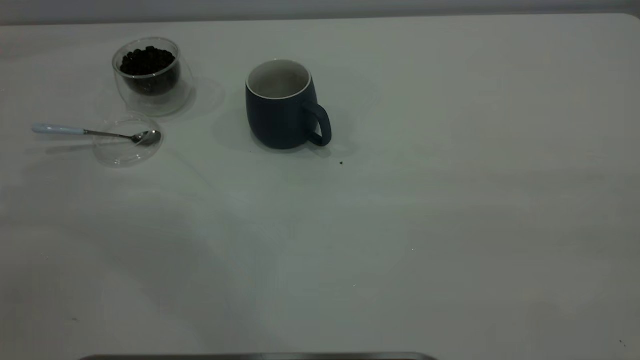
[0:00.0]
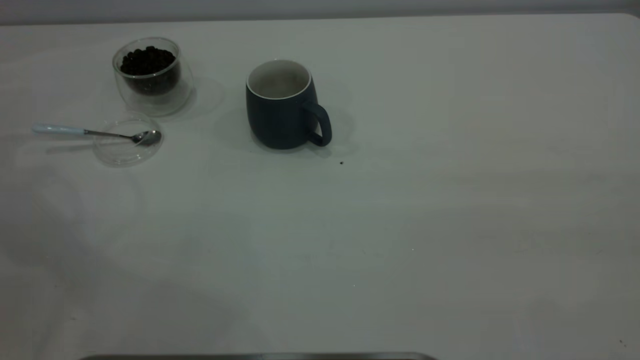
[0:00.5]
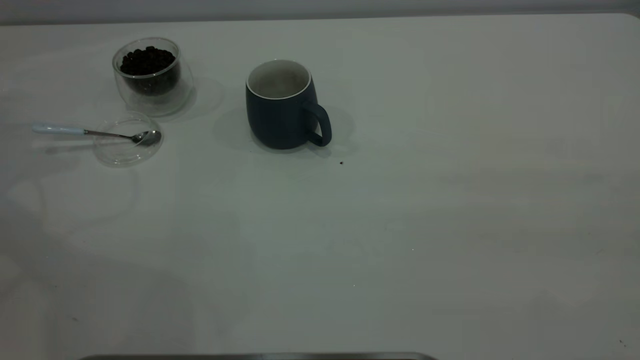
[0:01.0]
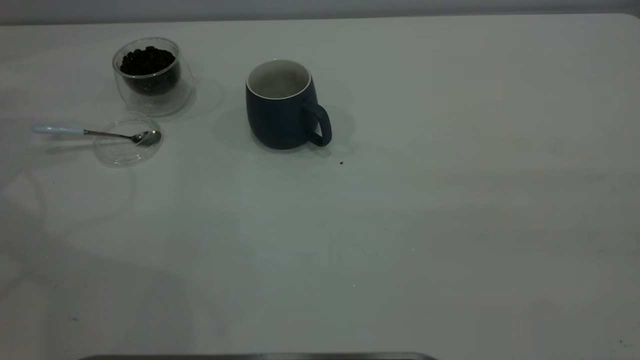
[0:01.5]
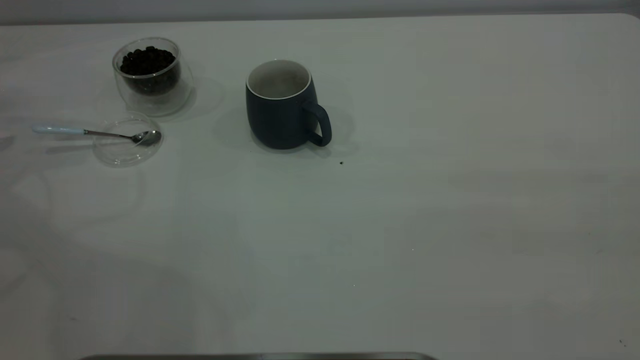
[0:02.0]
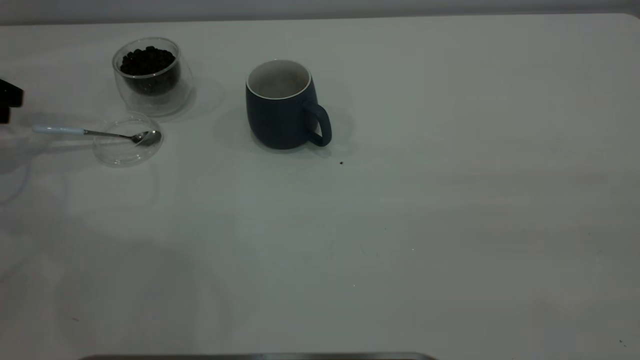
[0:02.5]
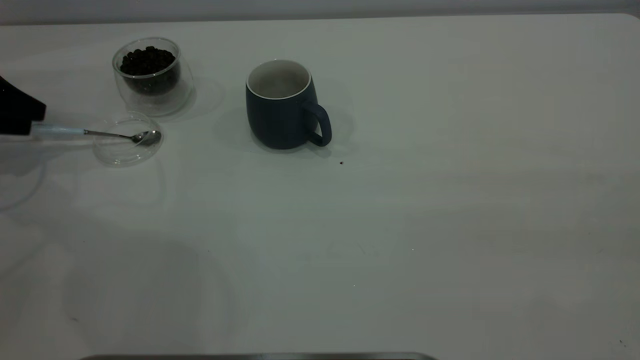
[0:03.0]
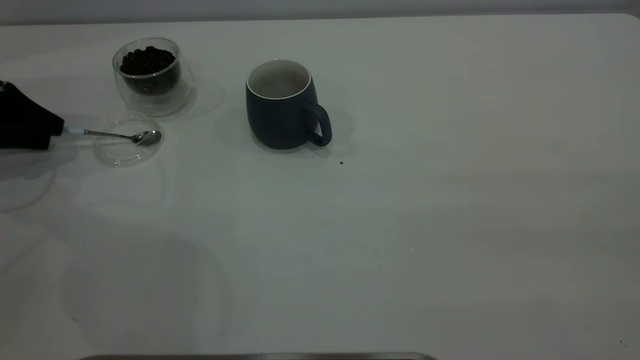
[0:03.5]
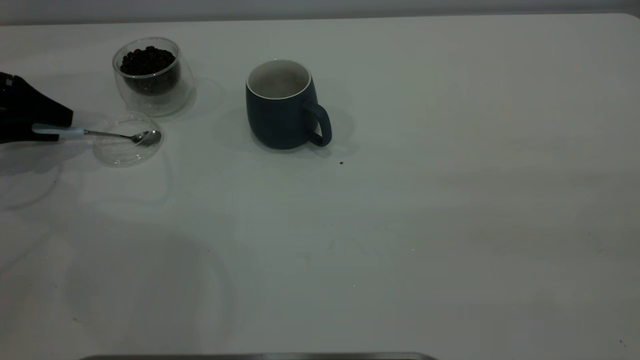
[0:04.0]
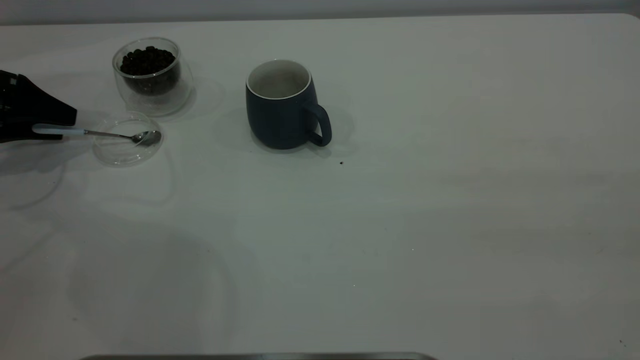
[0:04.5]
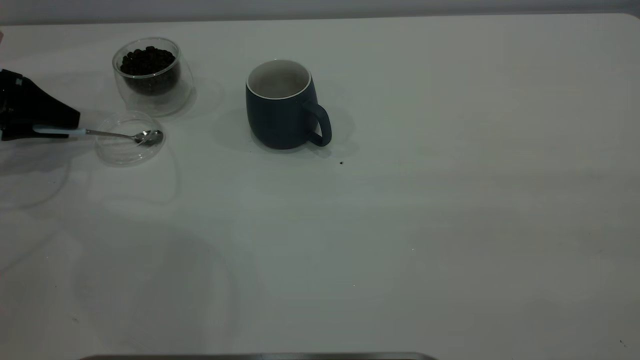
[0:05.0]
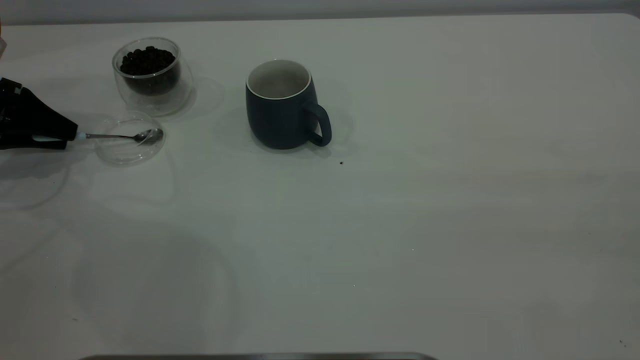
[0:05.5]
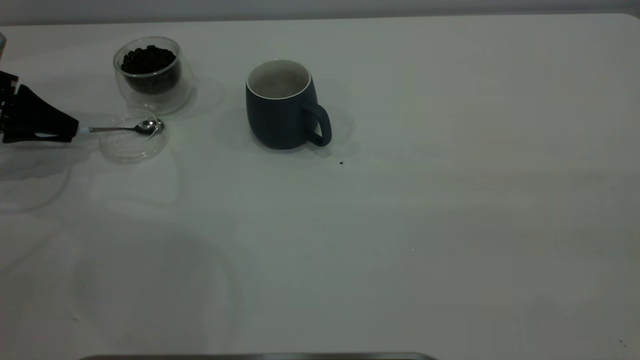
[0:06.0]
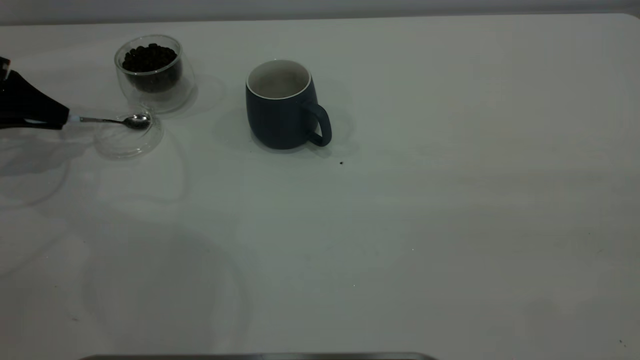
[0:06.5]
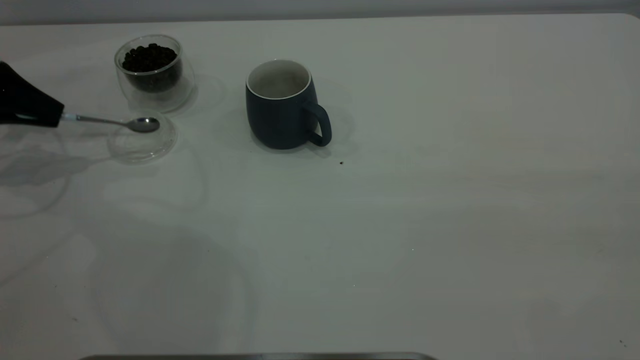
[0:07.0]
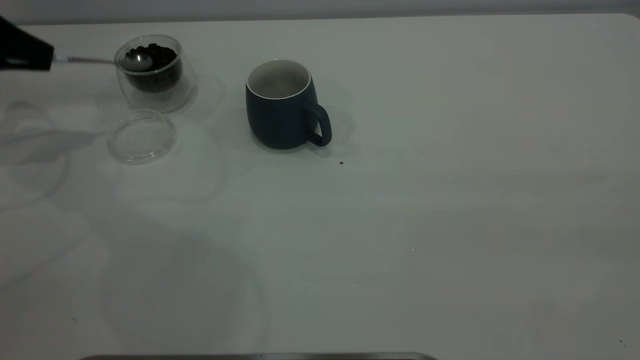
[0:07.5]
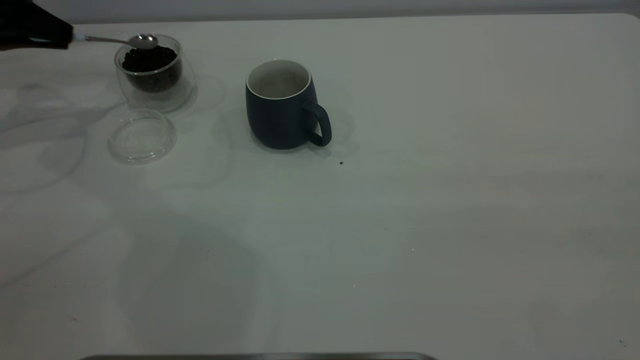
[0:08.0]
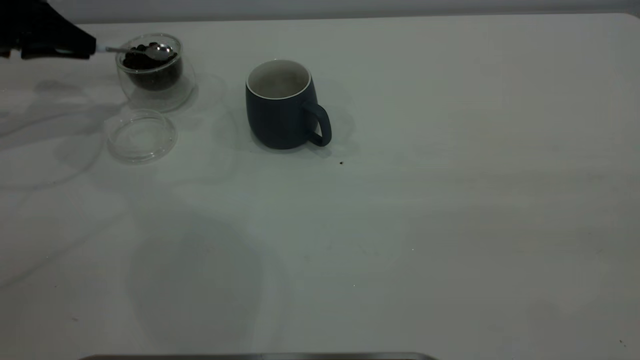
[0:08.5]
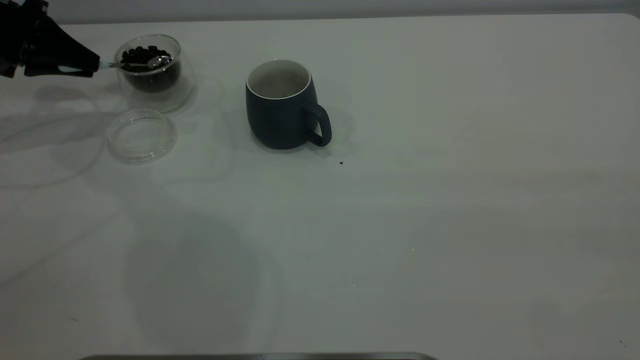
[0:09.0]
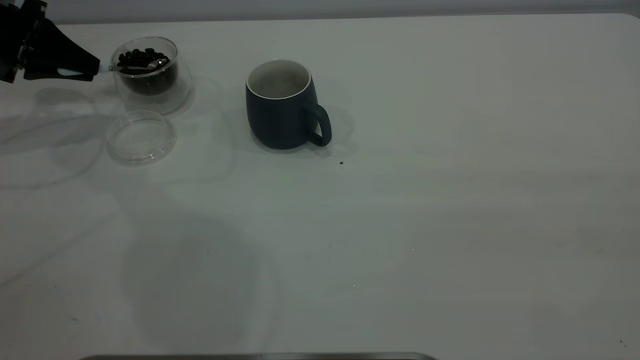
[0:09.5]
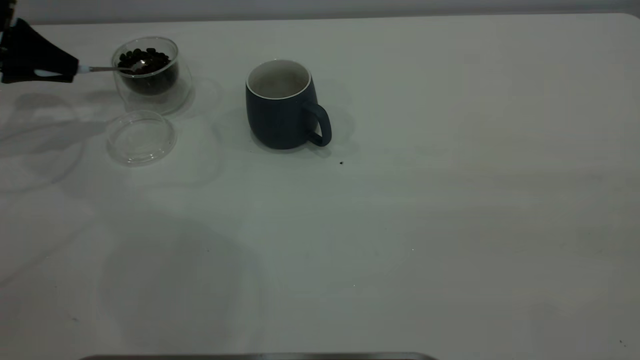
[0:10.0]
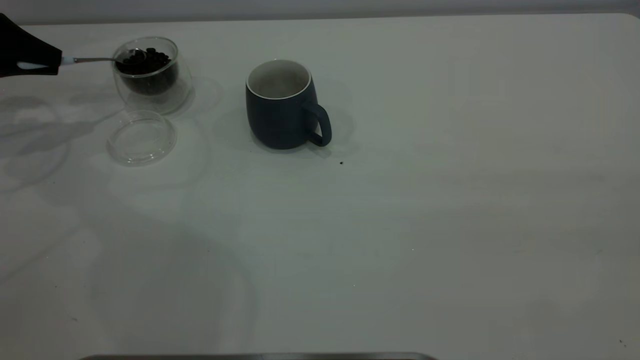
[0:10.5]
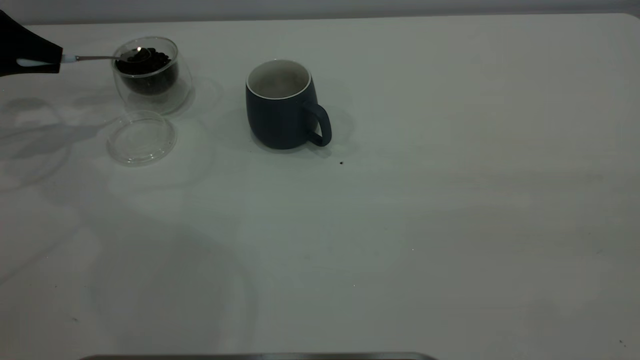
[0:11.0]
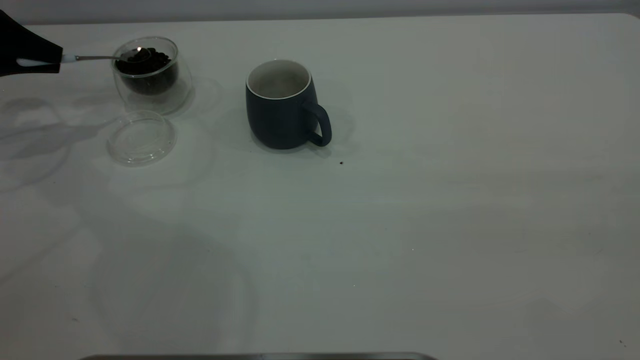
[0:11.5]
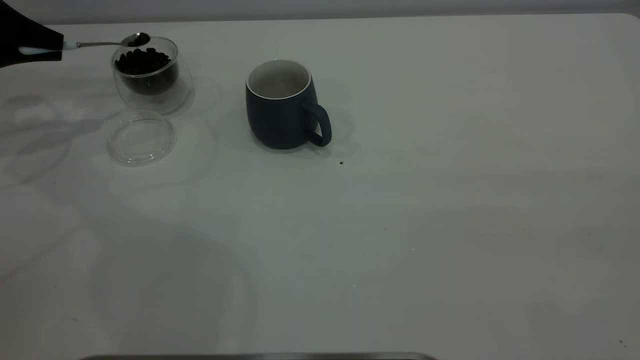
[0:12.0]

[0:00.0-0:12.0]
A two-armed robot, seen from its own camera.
Task of the whole recording: the right gripper place the grey cup in the center of the table, the left gripper take the blue spoon from the cup lid and scoop out the coffee beans from the coffee cup and put them into the grey cup, the left gripper put the spoon back into the cup lid.
Step, 0:00.0 to 0:07.0: Pick up the spoon.
0:02.0 to 0:04.0: The left gripper goes roughly 10 cm to the right and downward.
0:04.0 to 0:06.0: The left gripper closes.
0:06.0 to 0:08.0: The left gripper shifts approximately 10 cm upward and forward.
0:08.0 to 0:10.0: The grippers make only small movements.
0:10.0 to 0:12.0: There are only small adjustments of the grippers.

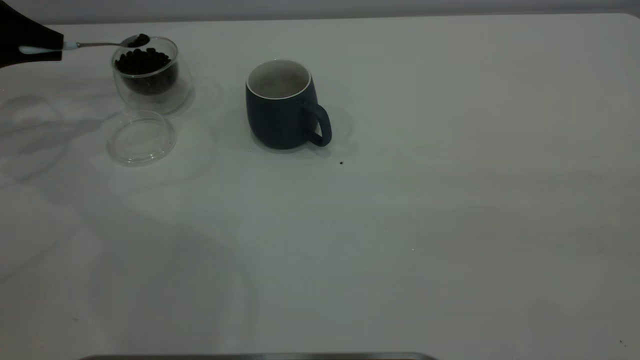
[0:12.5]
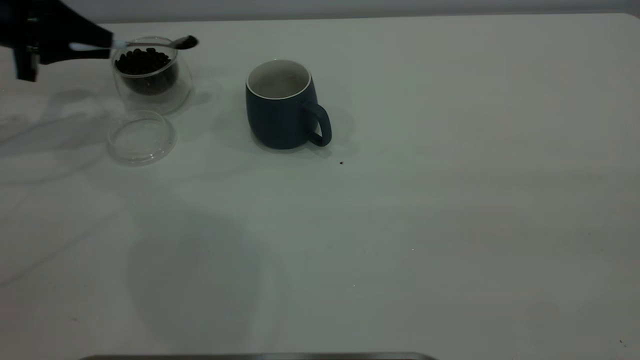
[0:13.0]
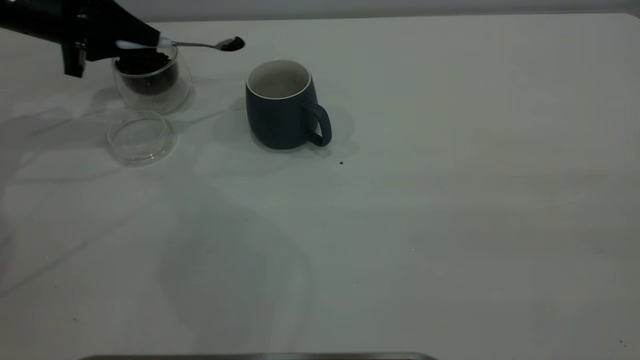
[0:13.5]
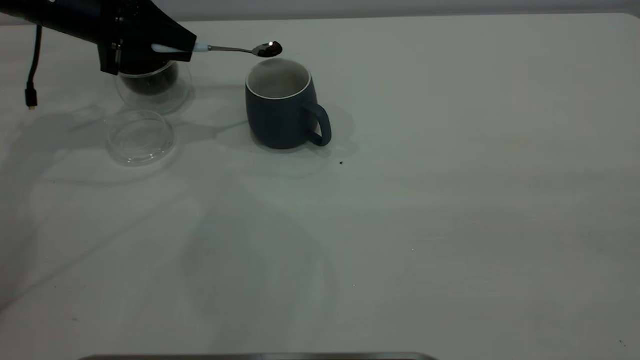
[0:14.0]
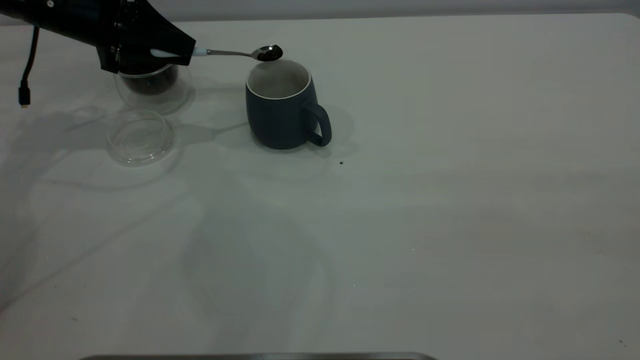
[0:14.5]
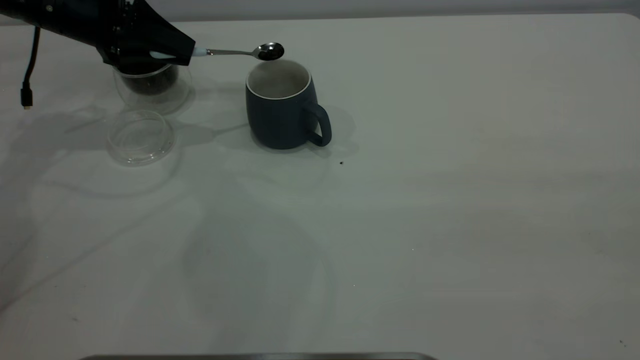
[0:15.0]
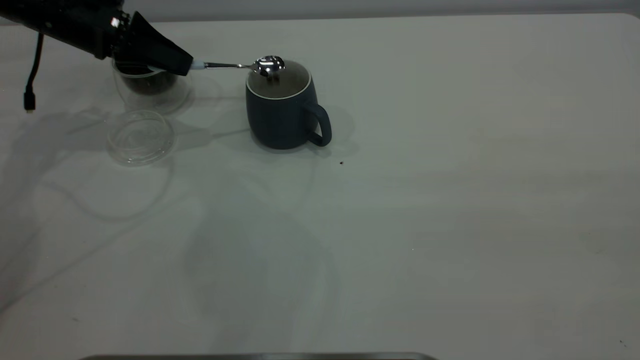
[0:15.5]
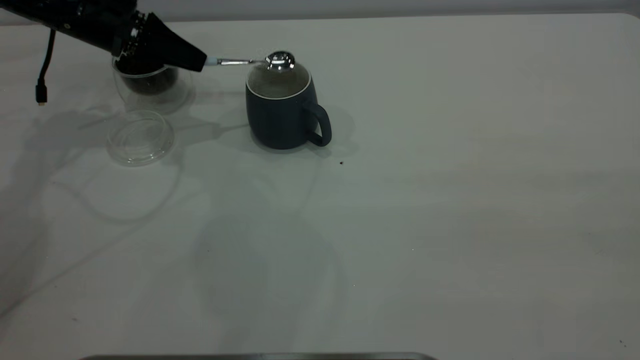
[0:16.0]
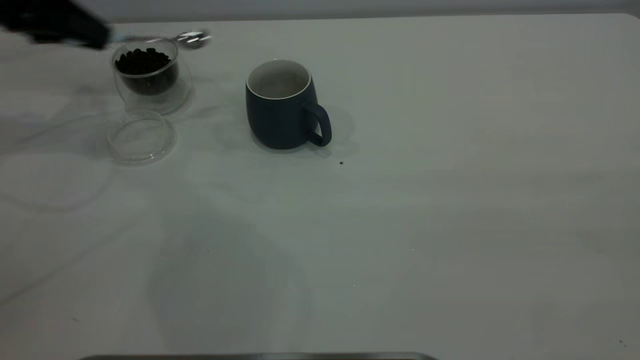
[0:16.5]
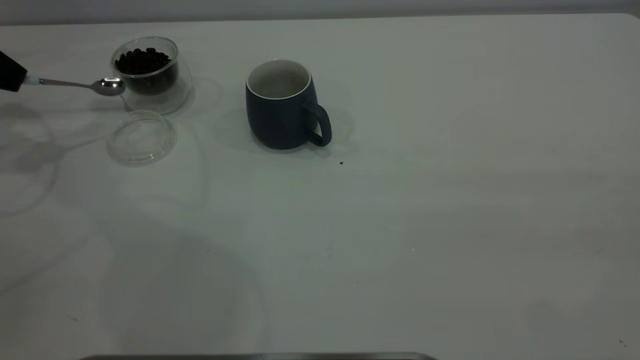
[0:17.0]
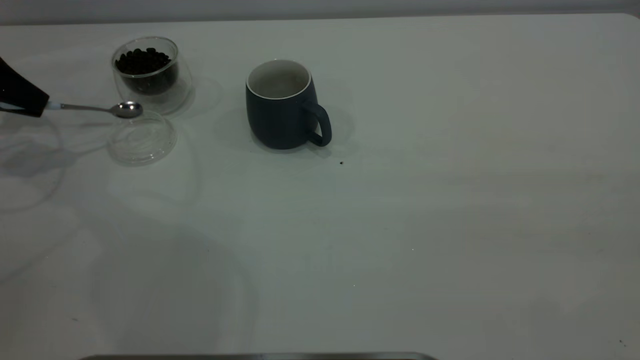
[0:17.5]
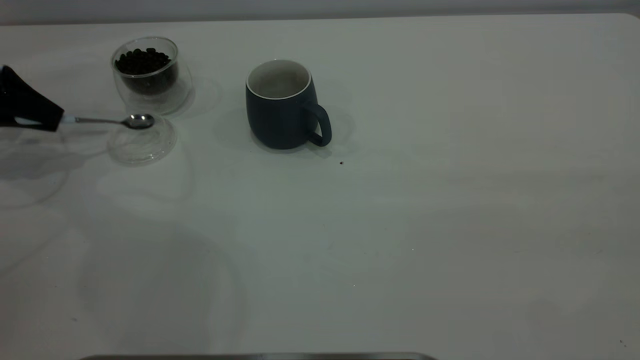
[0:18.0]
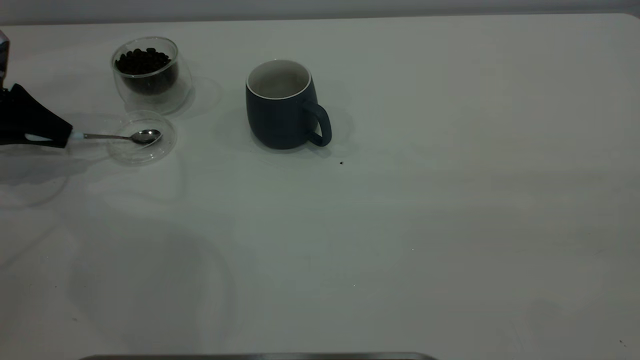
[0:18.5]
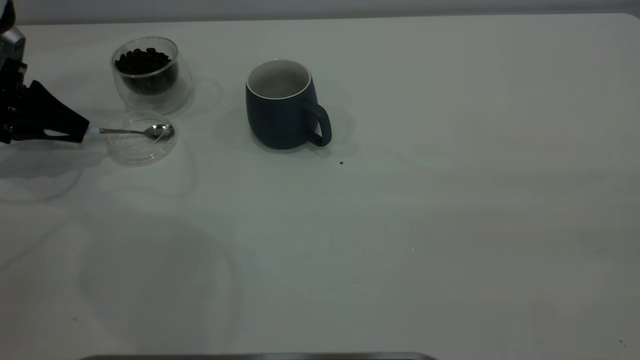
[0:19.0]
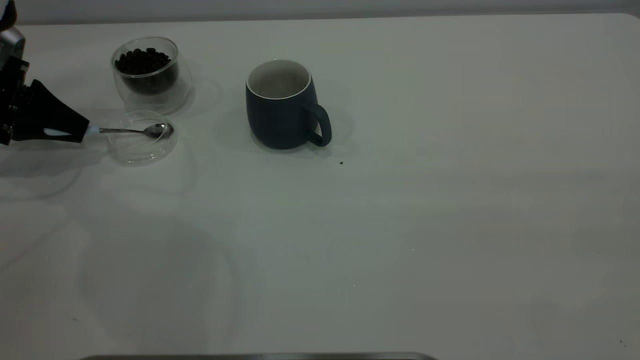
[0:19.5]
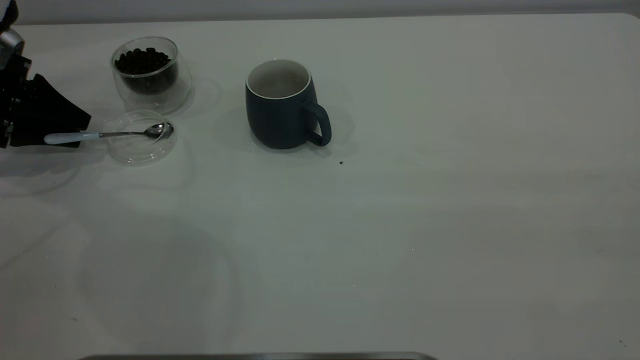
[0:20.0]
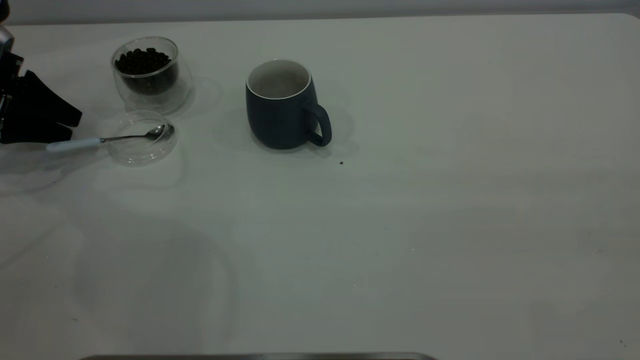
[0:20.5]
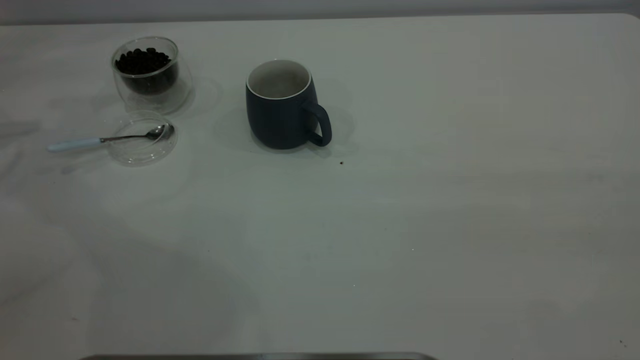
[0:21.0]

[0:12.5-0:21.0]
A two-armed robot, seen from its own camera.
Task of the whole recording: the right gripper place the grey cup in the center of the table, the left gripper take the blue spoon from the cup lid and scoop out the coffee beans from the coffee cup and put them into the grey cup, the left gripper put the spoon back into the cup lid.
Step, 0:12.5 to 0:16.0: Scoop a spoonful of beans into the cup.
Step, 0:16.5 to 0:20.5: Place the spoon back in its original place.
0:12.5 to 0:14.5: The left gripper is displaced to the right by approximately 15 cm.
0:14.5 to 0:16.5: The left gripper shifts some 10 cm to the left.
0:16.5 to 0:19.0: The left gripper heads downward, covering approximately 10 cm.
0:19.0 to 0:21.0: The left gripper travels upward and to the left by roughly 15 cm, and opens up.
